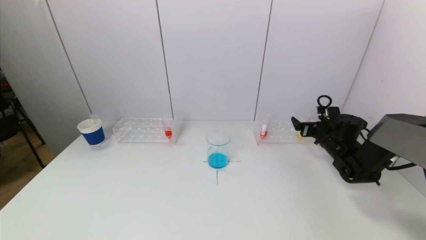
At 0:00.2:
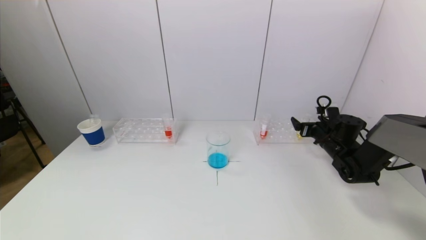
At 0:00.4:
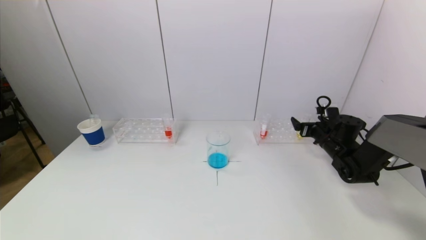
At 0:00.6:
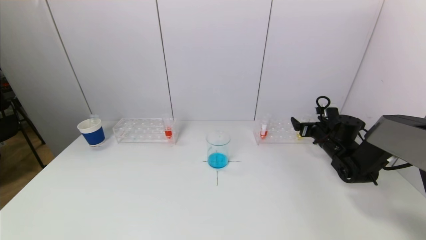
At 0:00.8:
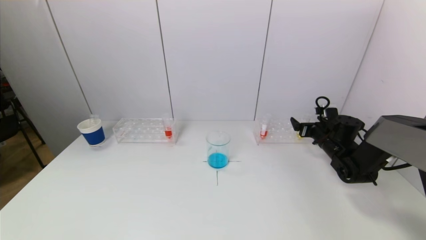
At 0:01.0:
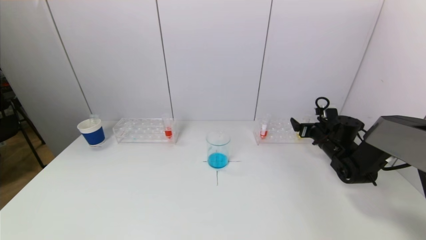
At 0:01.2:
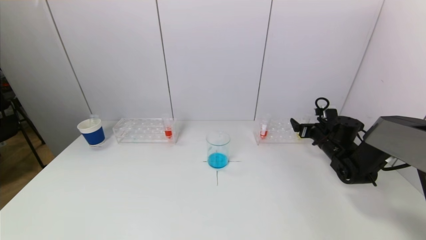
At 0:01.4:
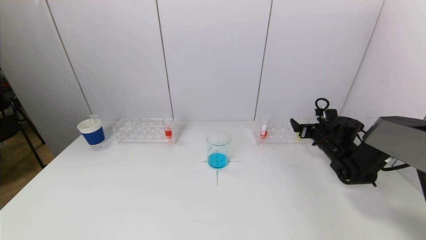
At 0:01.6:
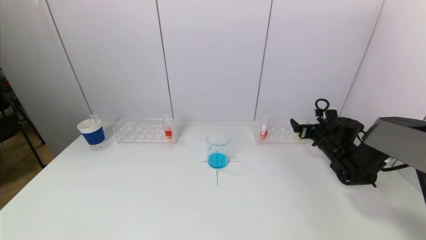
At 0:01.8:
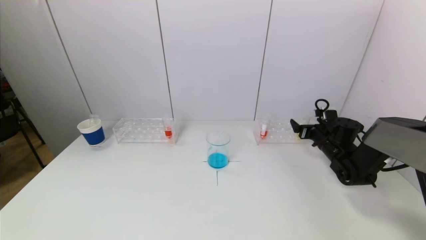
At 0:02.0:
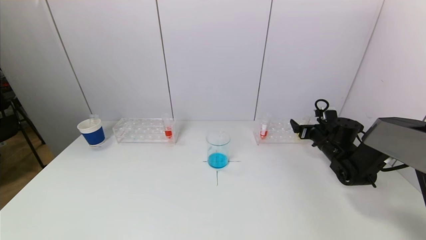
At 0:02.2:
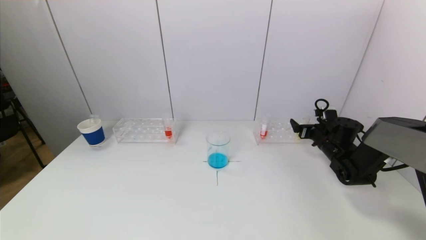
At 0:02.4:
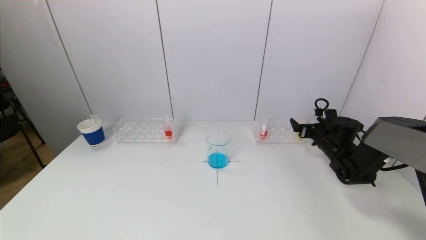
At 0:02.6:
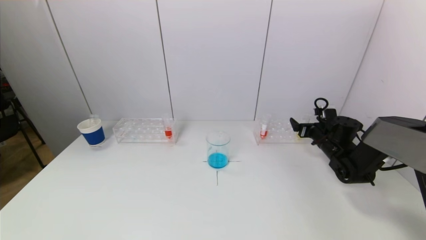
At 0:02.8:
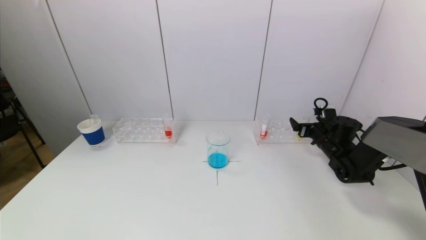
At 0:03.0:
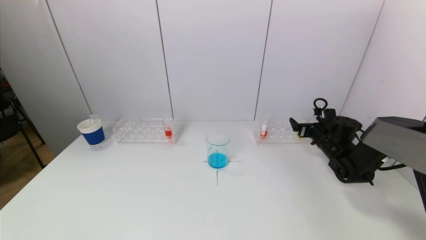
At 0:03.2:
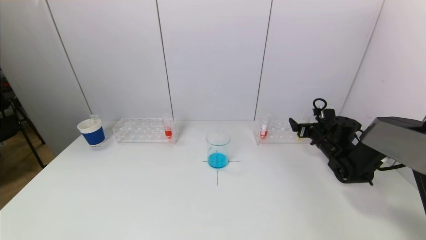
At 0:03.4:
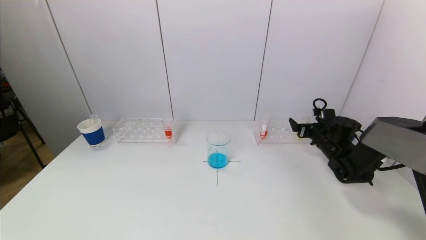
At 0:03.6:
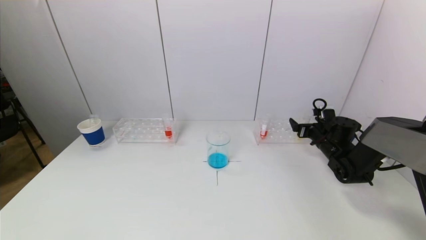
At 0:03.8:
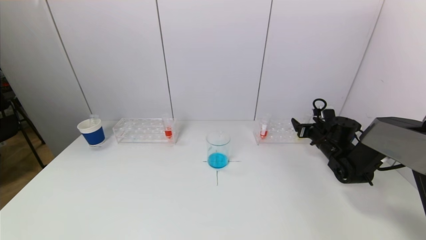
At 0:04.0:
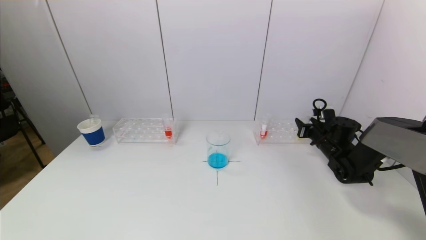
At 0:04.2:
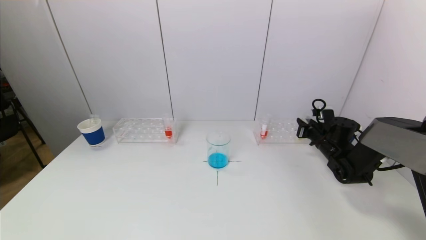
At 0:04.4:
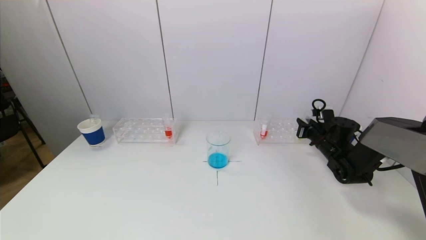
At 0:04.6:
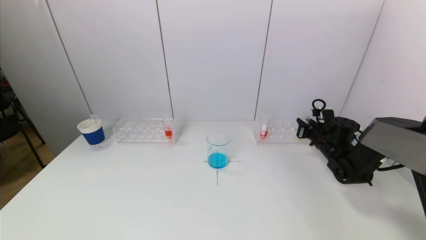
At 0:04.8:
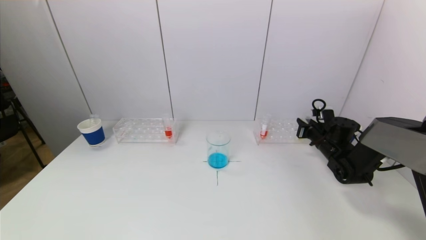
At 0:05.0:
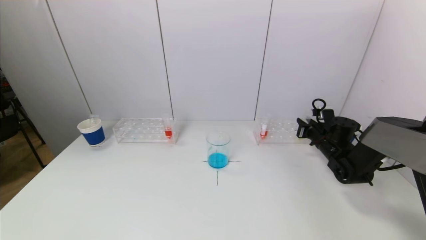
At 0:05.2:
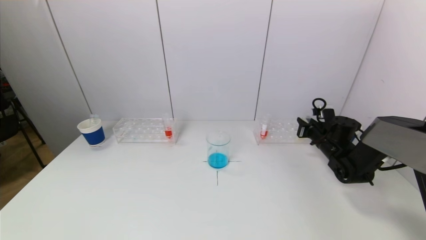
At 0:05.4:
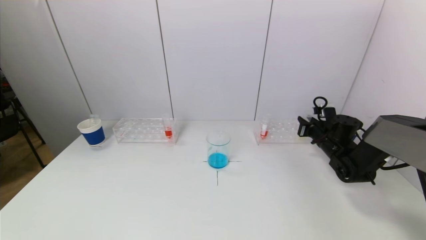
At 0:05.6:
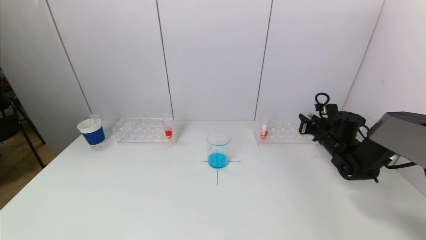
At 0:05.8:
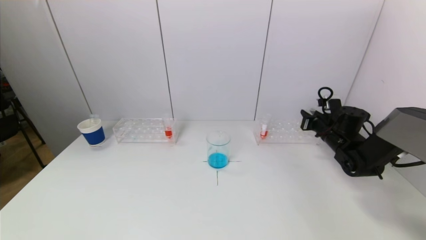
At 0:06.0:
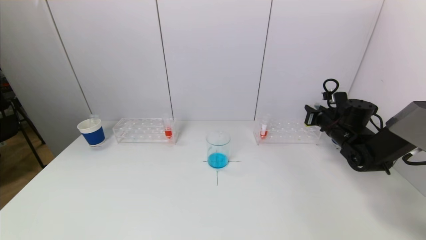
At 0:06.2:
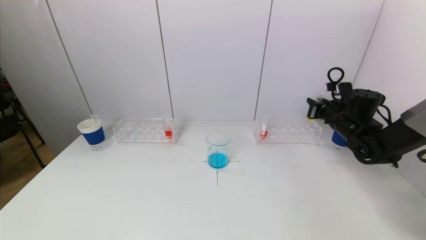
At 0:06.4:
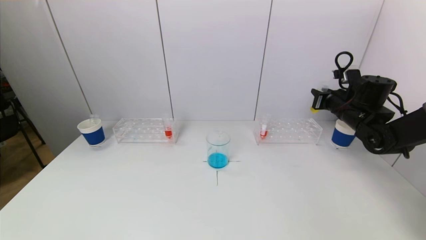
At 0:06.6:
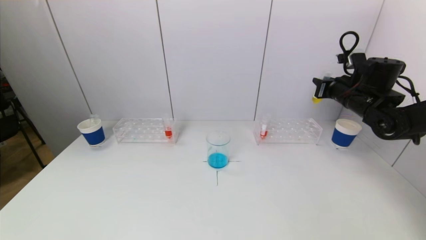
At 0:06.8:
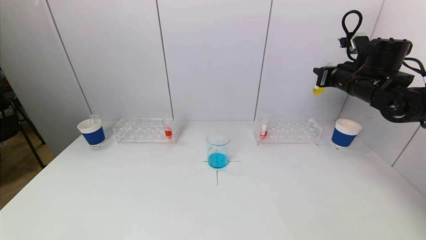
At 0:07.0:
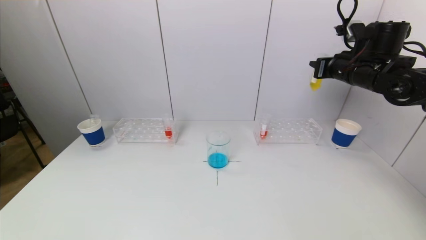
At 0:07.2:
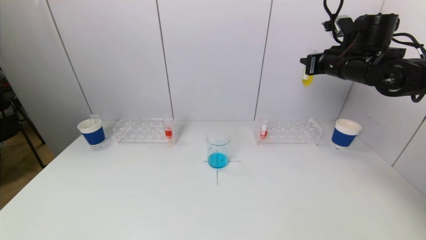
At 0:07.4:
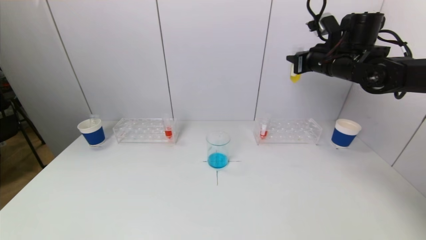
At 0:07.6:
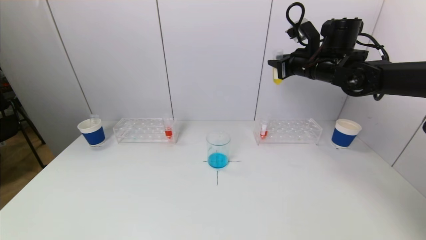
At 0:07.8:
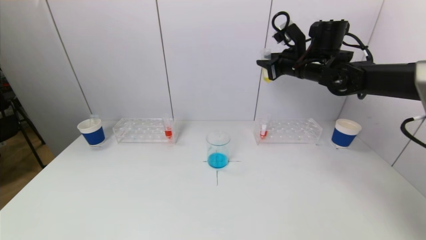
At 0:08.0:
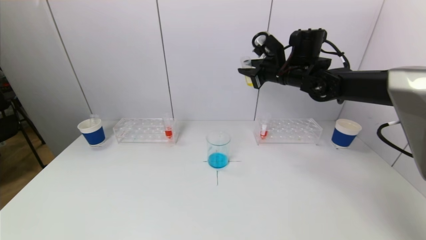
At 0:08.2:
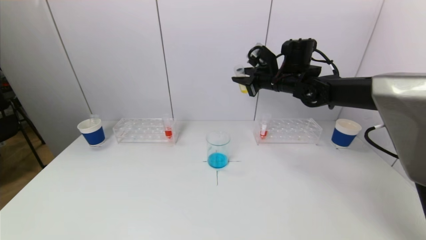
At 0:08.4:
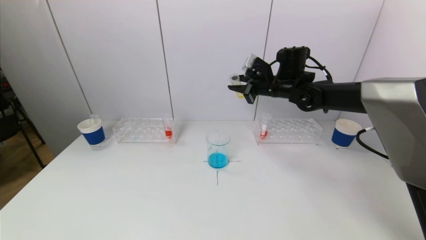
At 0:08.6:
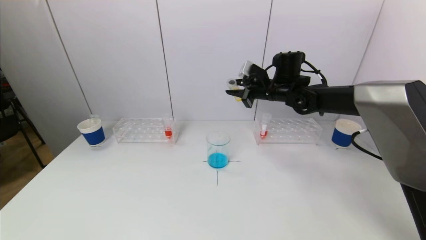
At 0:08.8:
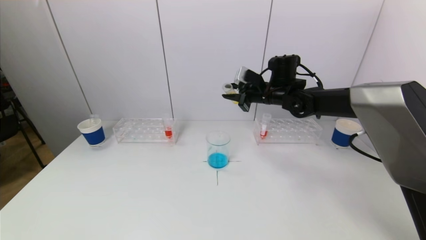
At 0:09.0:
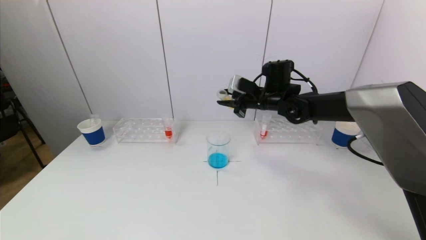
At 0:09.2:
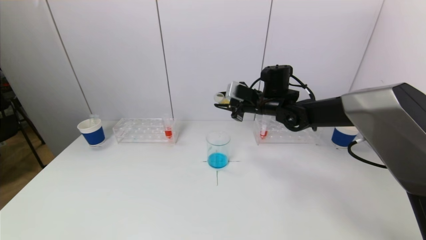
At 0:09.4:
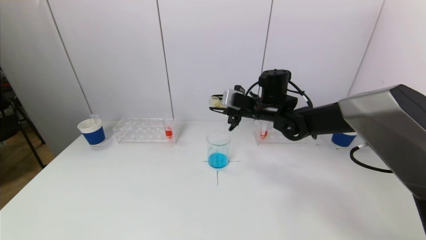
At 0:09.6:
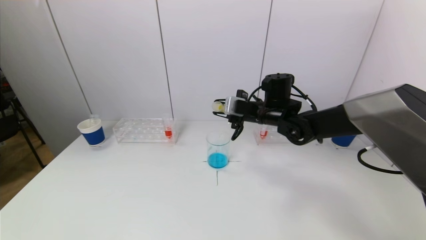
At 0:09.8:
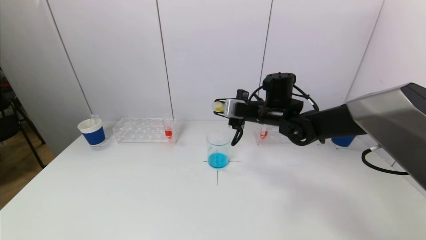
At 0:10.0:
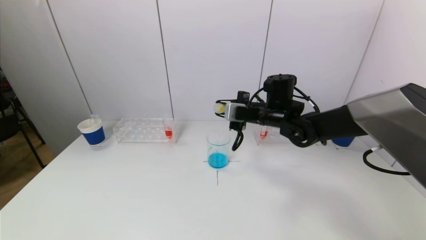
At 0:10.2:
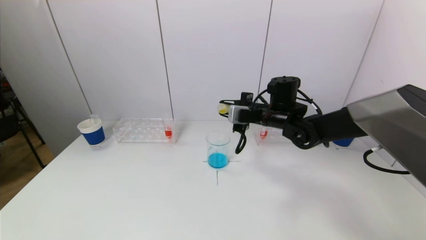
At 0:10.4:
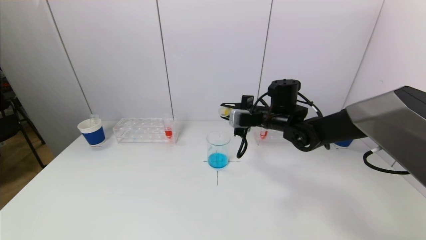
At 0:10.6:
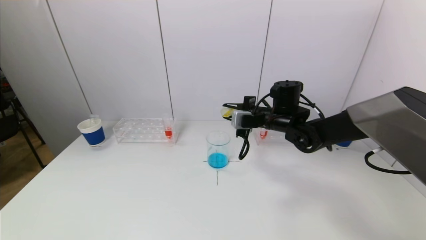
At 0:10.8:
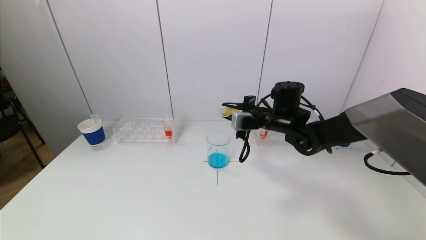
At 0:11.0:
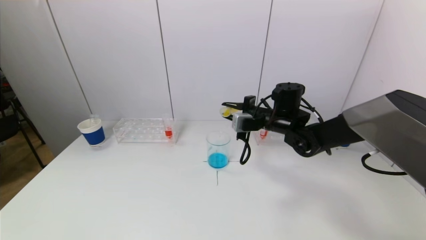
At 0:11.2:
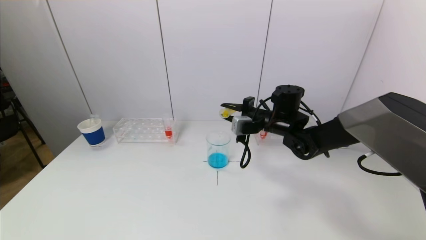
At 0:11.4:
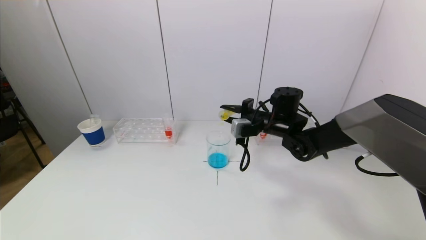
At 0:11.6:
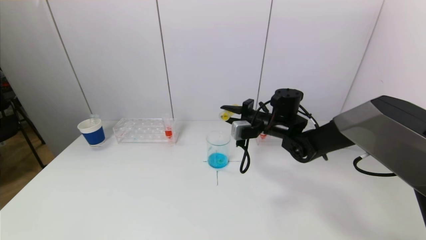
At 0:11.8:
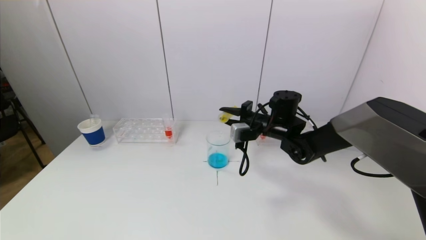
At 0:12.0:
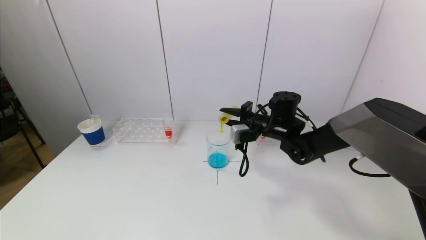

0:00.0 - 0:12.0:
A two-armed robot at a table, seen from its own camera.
Task of the whole recording: pick up a test tube with pigment on left test tube rack and a test tube with pigment on right test tube rack by grippers and pour them into the beaker.
0:00.0 - 0:01.6: The two grippers keep their place.
0:01.6 - 0:03.0: Both grippers stay about where they are.
0:03.0 - 0:04.4: The right gripper closes its fingers.
0:04.4 - 0:06.0: The right gripper shifts roughly 5 cm upward.
0:06.0 - 0:07.6: The right gripper shifts roughly 20 cm upward and to the left.
0:07.6 - 0:09.0: The right gripper moves to the left and downward, approximately 15 cm.
0:09.0 - 0:10.4: The right gripper changes place by some 5 cm.
0:10.4 - 0:12.0: The grippers make only small movements.

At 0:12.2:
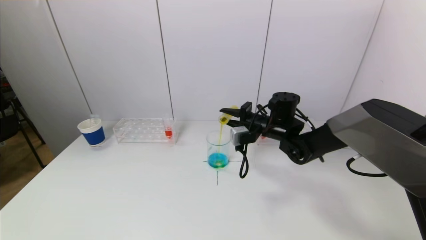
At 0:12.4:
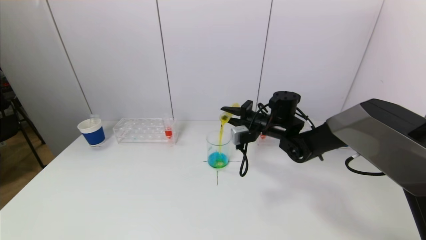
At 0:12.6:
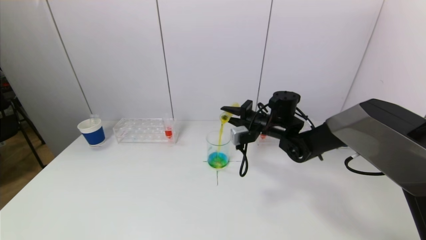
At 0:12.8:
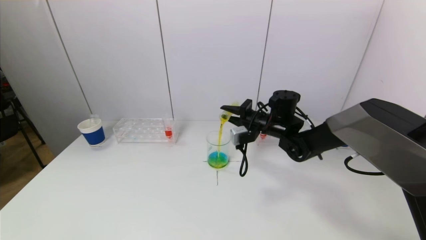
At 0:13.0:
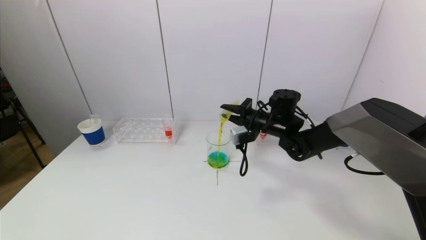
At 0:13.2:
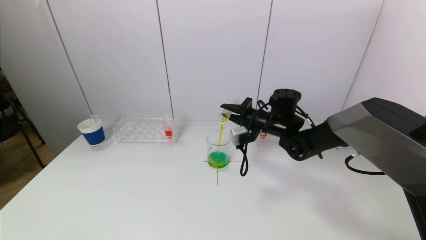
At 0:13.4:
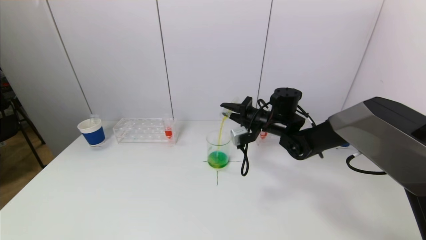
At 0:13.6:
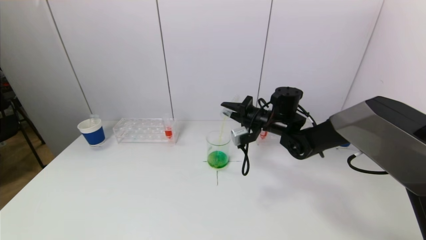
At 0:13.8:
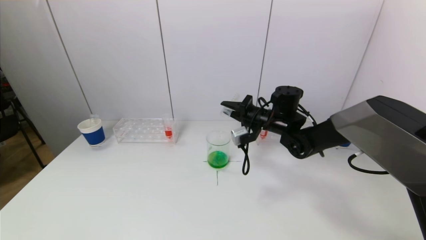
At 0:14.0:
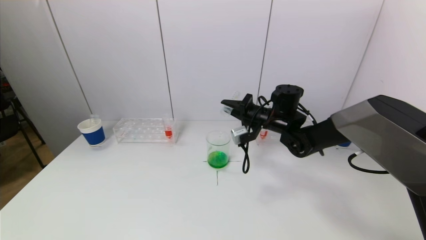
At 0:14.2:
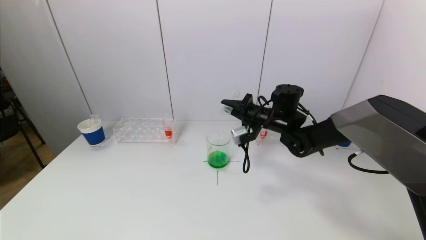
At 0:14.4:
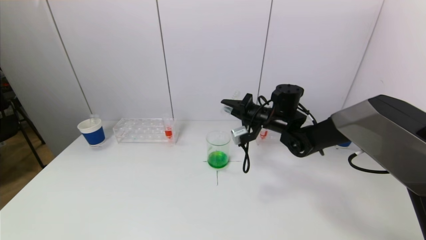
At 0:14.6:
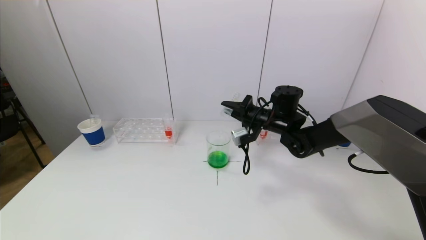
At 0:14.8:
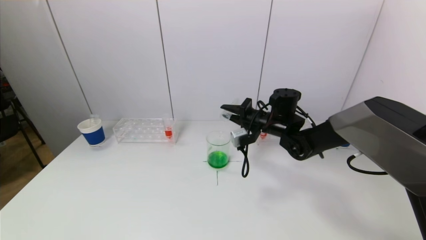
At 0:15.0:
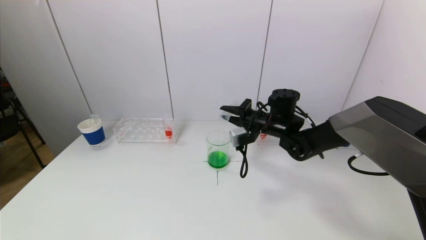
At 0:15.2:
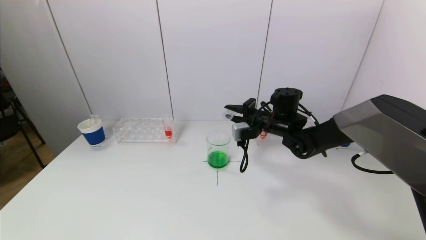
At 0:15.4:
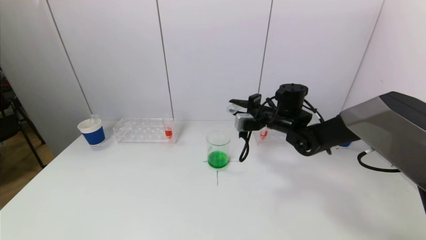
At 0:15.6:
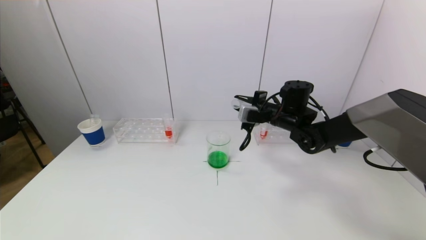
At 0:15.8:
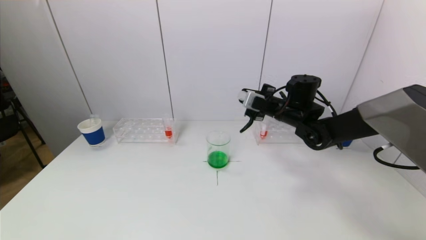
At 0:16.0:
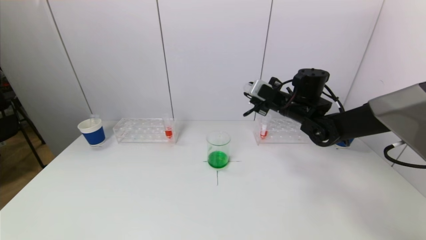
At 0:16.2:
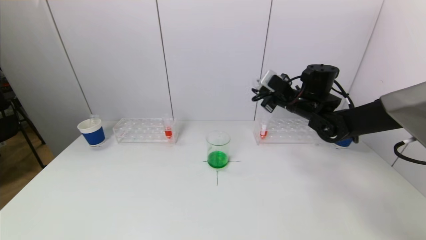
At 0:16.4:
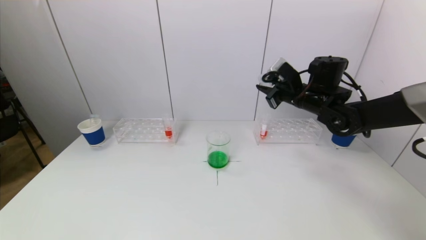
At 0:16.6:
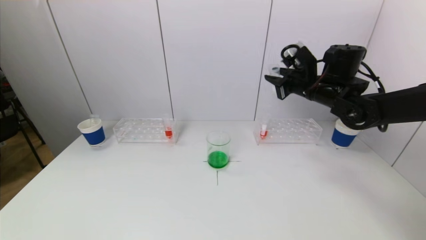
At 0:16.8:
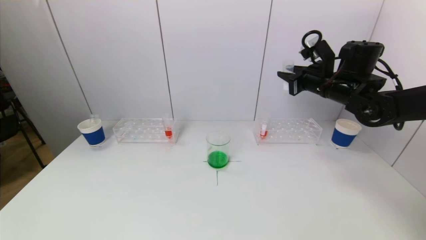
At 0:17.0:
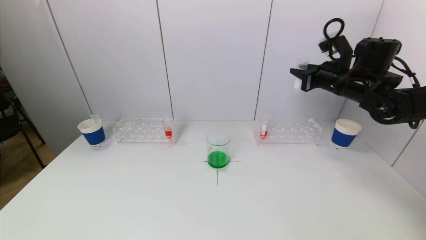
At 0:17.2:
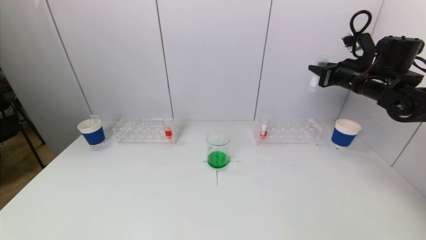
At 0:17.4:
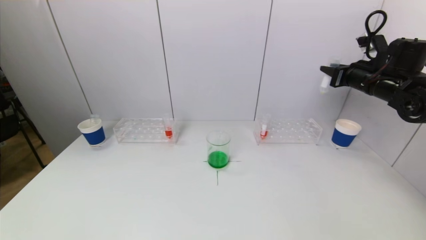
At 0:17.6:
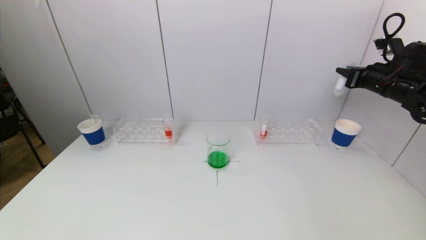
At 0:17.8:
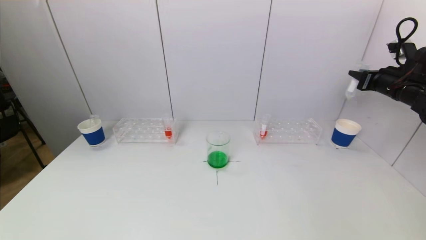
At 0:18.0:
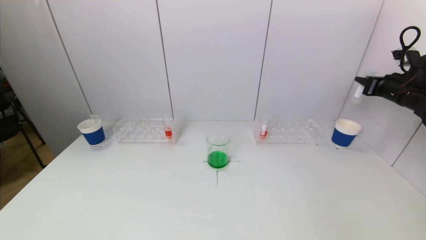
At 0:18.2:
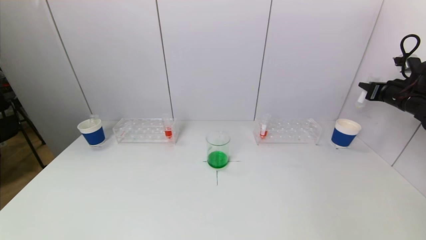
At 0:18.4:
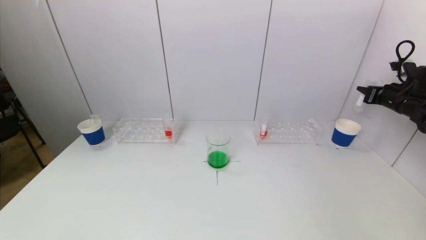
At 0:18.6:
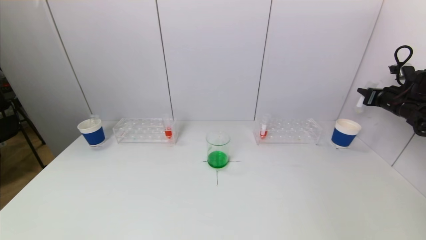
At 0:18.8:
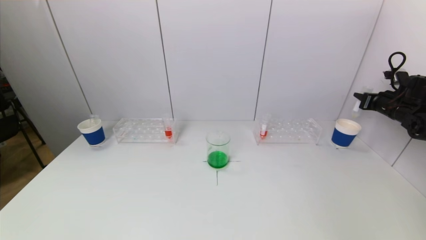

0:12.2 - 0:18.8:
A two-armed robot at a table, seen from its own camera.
Task of the whole recording: pick up a test tube with pigment on left test tube rack and a test tube with pigment on right test tube rack by grippers and pour them into the beaker.
0:12.2 - 0:13.8: The grippers move only a little.
0:15.4 - 0:17.2: The right gripper moves to the right and upward, about 20 cm.
0:17.2 - 0:18.8: The right gripper goes roughly 20 cm to the right and downward.
